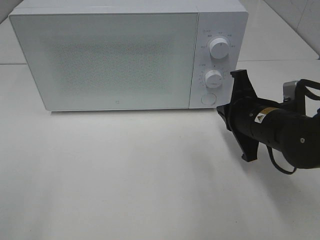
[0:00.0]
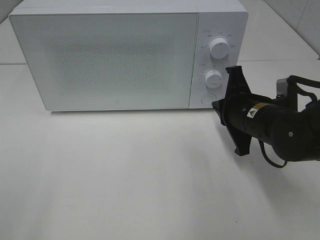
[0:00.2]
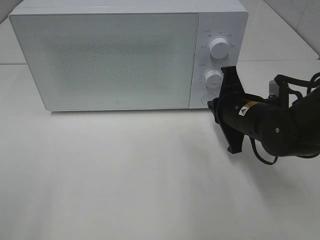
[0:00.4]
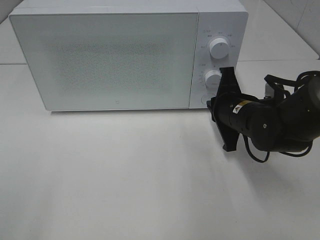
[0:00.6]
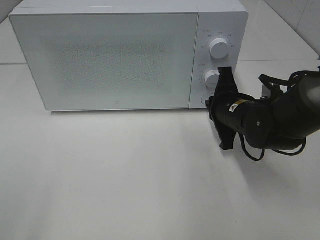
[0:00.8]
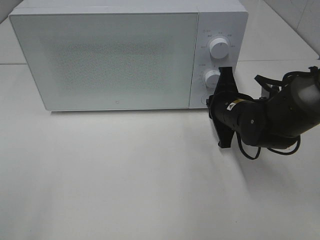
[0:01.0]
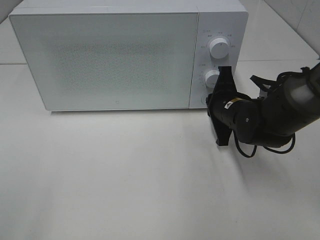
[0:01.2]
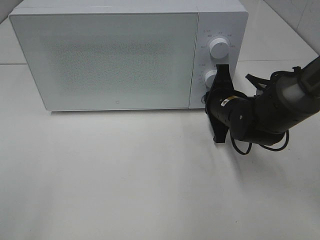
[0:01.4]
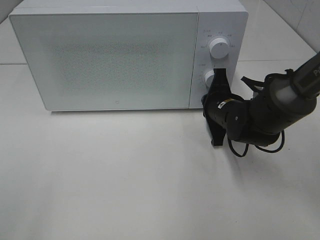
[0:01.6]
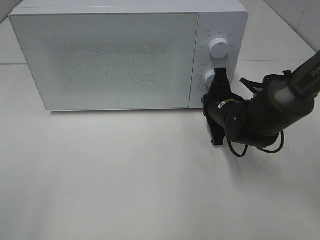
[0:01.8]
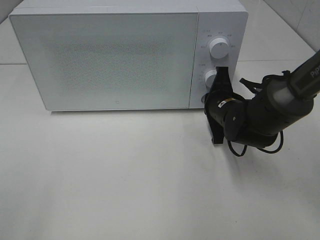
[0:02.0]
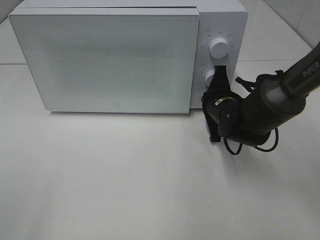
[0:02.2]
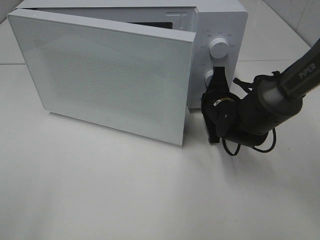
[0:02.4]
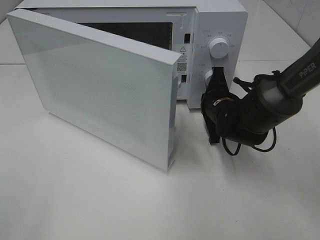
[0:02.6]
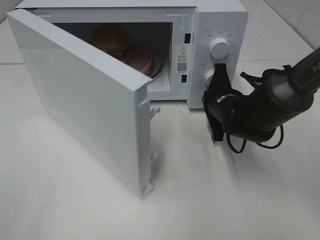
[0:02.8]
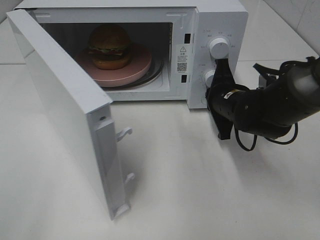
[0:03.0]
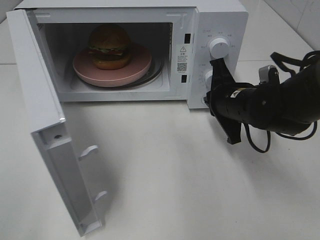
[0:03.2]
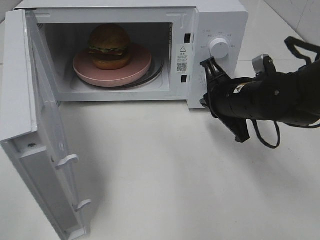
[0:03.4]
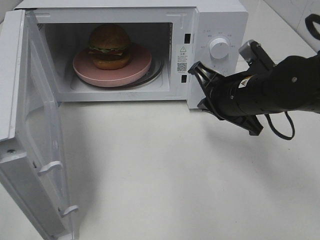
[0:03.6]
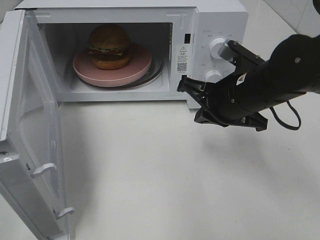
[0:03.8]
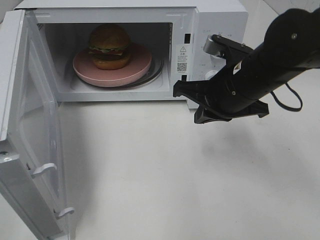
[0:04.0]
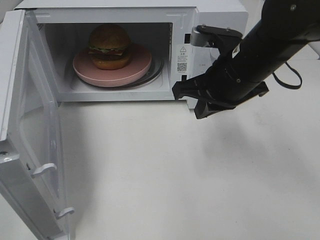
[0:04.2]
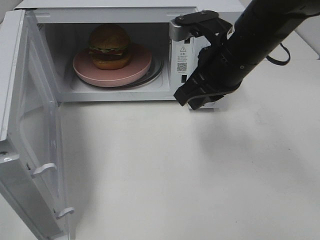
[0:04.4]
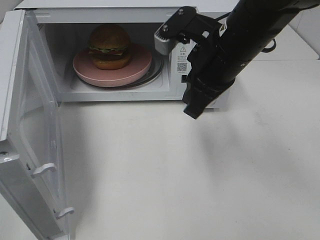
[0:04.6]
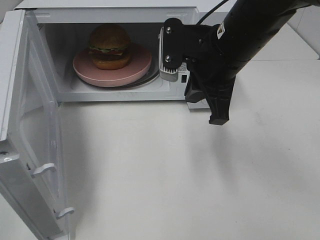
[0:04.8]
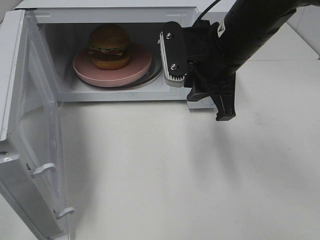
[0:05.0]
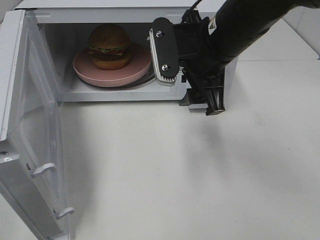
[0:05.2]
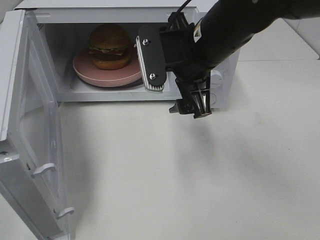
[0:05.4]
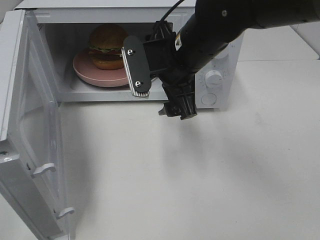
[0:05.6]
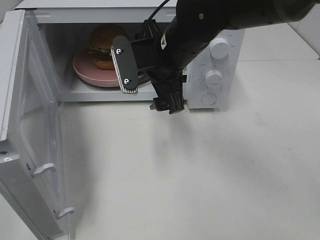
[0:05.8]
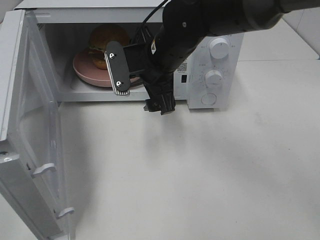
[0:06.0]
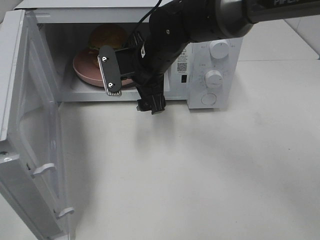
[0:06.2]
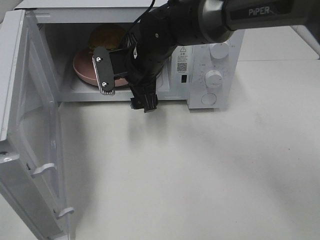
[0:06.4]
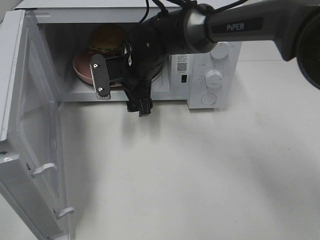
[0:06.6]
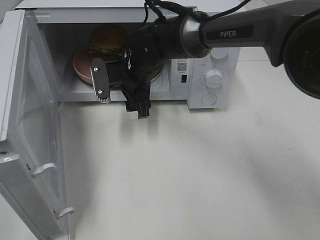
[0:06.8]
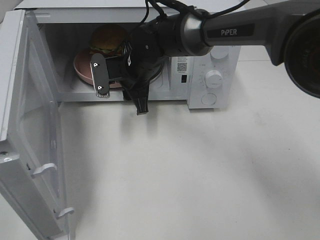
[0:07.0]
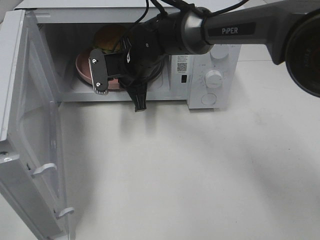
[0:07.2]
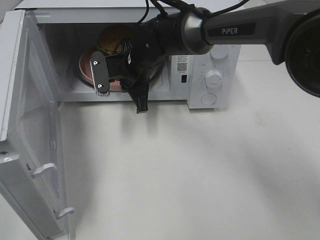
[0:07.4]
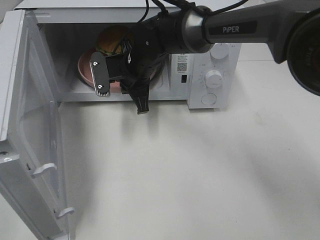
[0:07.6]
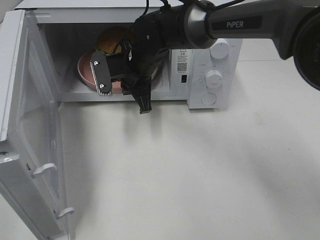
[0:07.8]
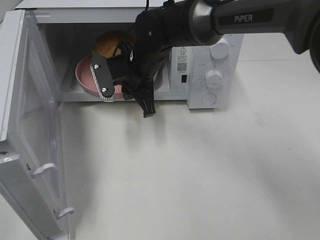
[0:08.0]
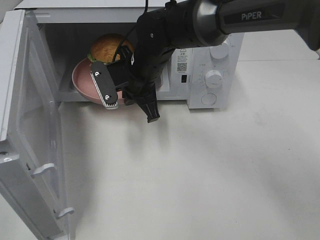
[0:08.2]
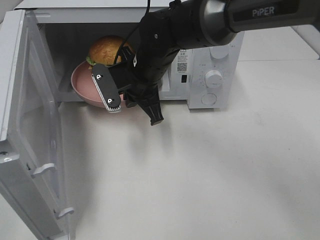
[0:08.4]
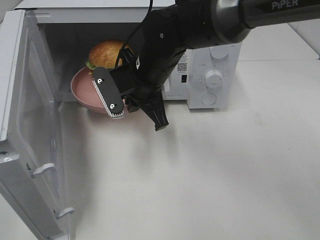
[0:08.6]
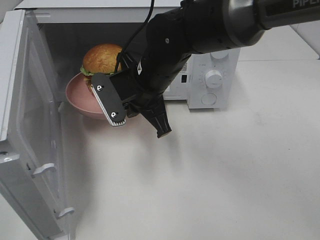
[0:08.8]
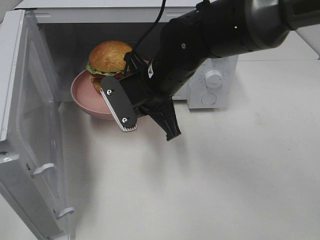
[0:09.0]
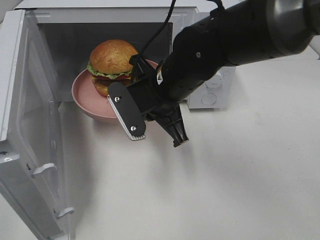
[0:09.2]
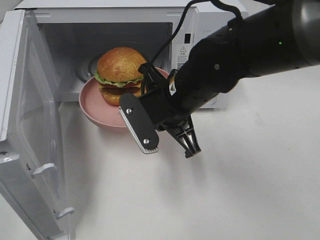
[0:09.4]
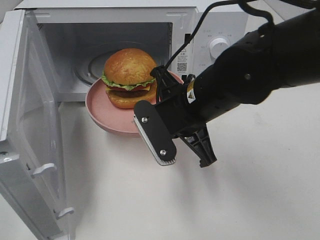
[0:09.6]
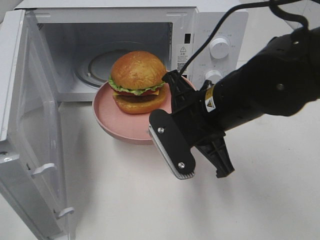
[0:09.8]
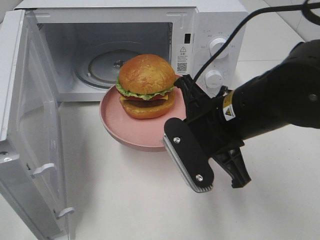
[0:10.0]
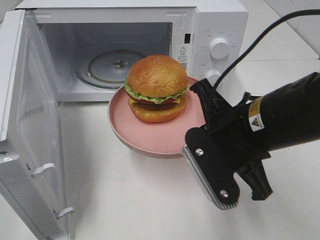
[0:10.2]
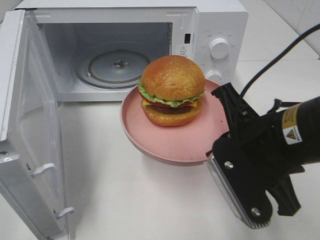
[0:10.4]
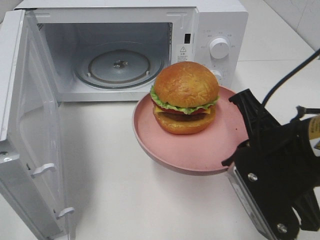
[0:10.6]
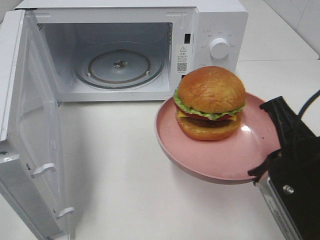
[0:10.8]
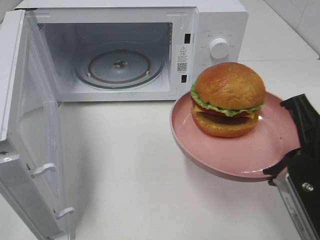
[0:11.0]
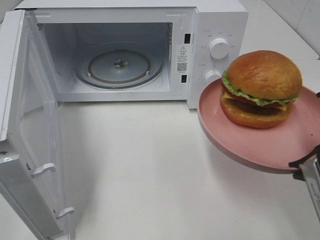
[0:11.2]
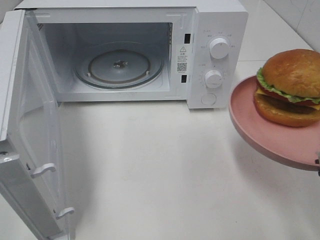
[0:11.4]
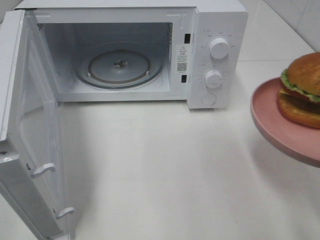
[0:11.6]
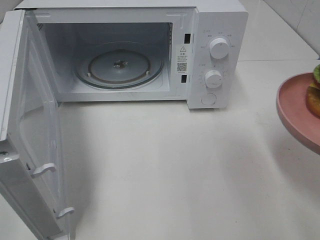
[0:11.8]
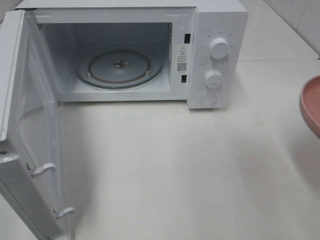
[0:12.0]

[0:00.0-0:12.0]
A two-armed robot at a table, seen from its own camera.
Task of the whole recording: Heat the burger.
Step, 0:00.0 to 0:03.0: Right hand: press the switch.
Step, 0:03.2 to 0:07.2: Right hand: grab the plate with the hamburger.
0:00.0 to 0:01.6: The right gripper goes about 10 cm forward.
0:03.0 to 0:04.4: The right gripper is displaced upward by approximately 15 cm.
0:04.4 to 0:06.0: The right gripper is displaced to the left and forward by approximately 10 cm, and opens its fingers.
0:06.0 to 0:07.6: The right gripper shifts about 10 cm forward and downward, and closes.
0:07.6 to 0:09.0: The right gripper heads backward, covering approximately 10 cm.
0:09.0 to 0:10.4: The right gripper shifts approximately 20 cm backward and to the right.
0:10.4 to 0:12.0: The right gripper moves to the right and backward, some 10 cm.

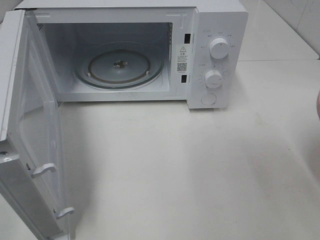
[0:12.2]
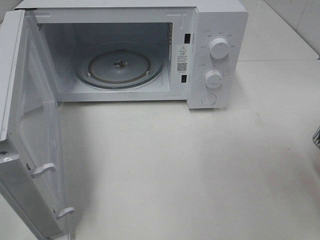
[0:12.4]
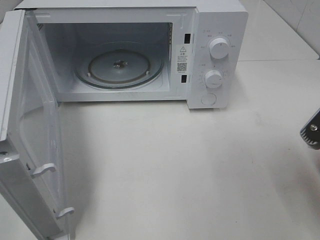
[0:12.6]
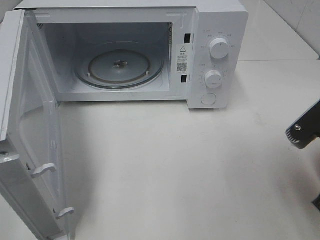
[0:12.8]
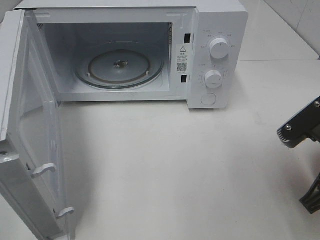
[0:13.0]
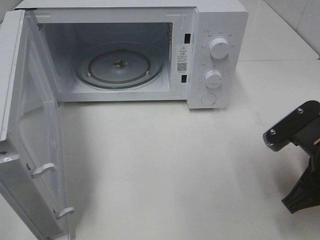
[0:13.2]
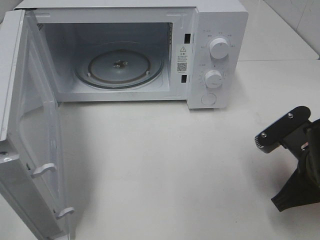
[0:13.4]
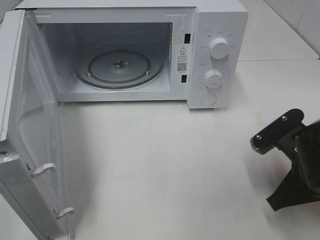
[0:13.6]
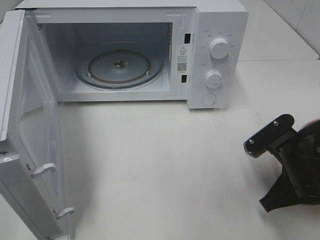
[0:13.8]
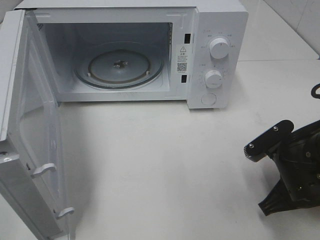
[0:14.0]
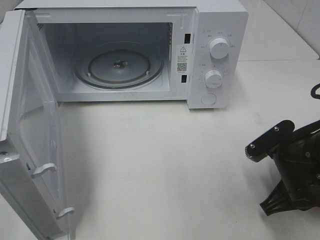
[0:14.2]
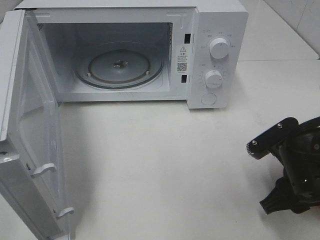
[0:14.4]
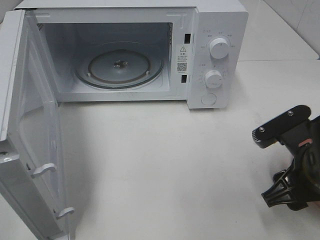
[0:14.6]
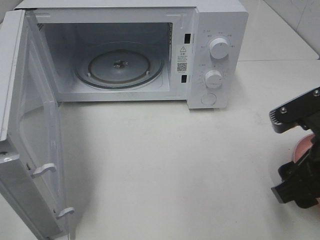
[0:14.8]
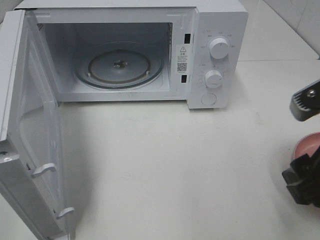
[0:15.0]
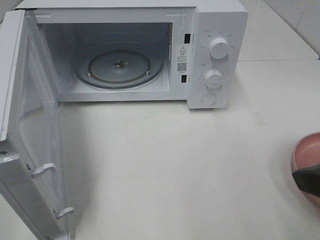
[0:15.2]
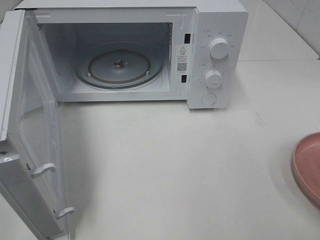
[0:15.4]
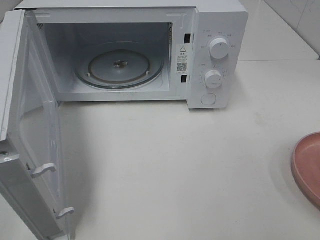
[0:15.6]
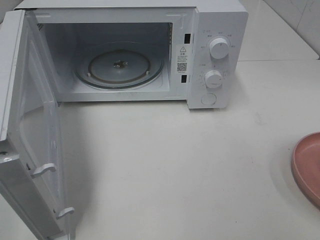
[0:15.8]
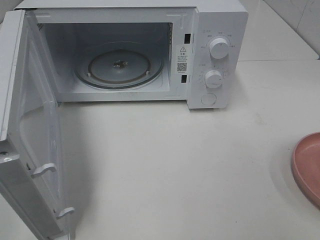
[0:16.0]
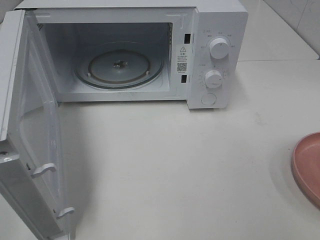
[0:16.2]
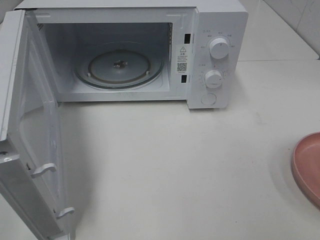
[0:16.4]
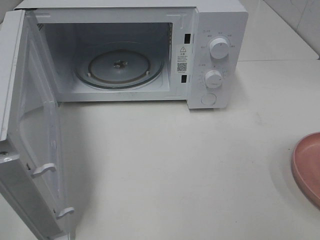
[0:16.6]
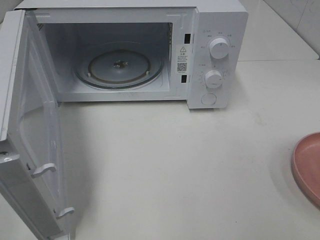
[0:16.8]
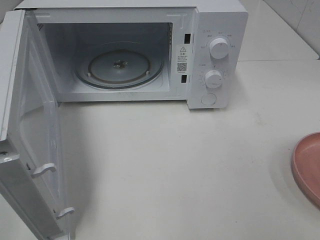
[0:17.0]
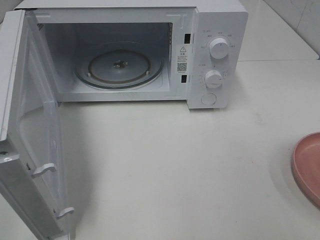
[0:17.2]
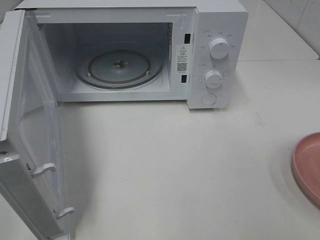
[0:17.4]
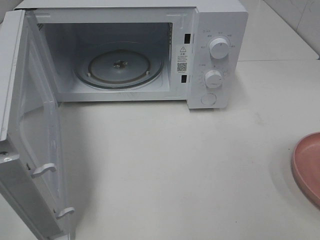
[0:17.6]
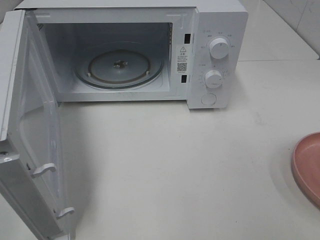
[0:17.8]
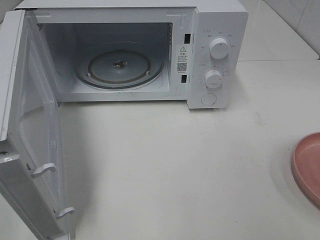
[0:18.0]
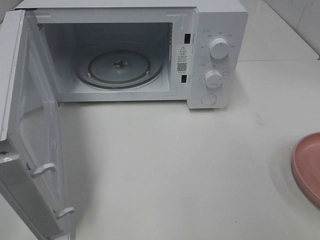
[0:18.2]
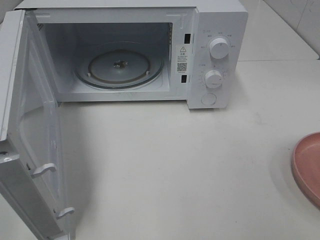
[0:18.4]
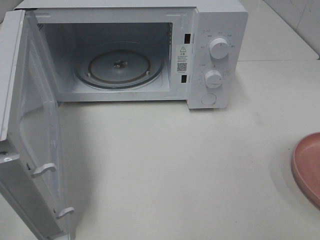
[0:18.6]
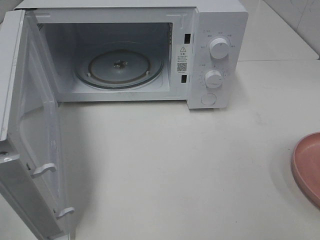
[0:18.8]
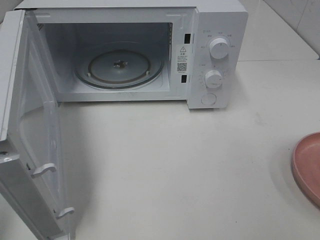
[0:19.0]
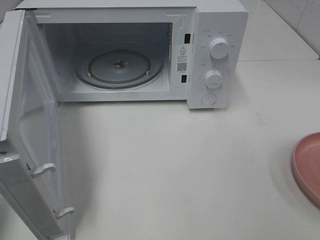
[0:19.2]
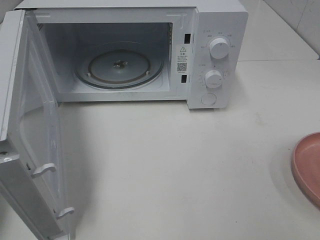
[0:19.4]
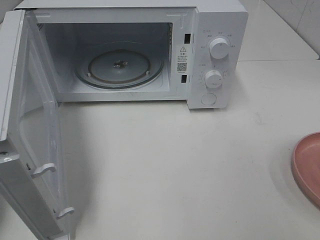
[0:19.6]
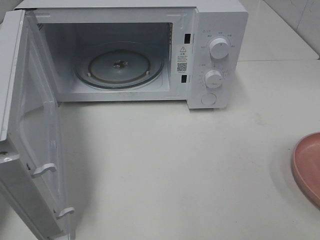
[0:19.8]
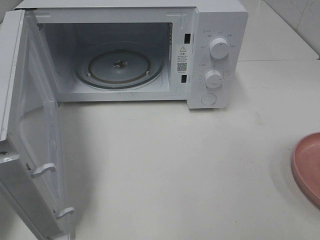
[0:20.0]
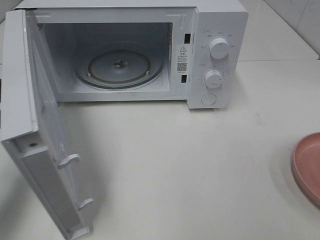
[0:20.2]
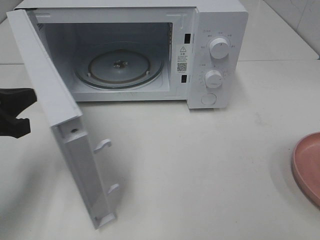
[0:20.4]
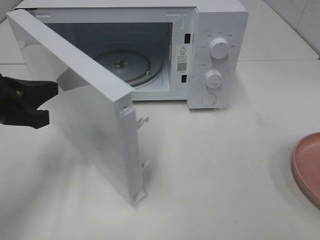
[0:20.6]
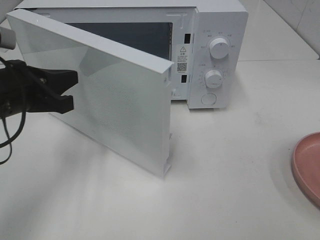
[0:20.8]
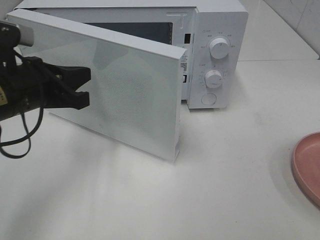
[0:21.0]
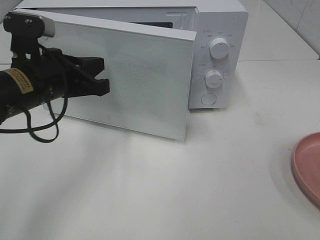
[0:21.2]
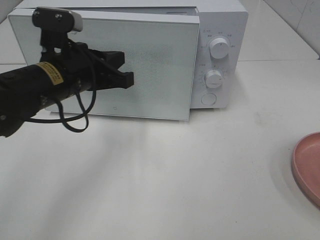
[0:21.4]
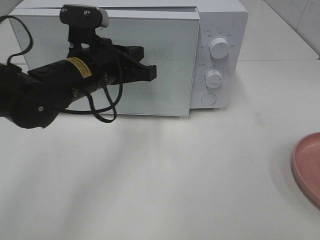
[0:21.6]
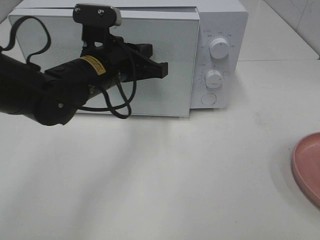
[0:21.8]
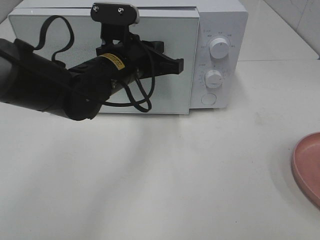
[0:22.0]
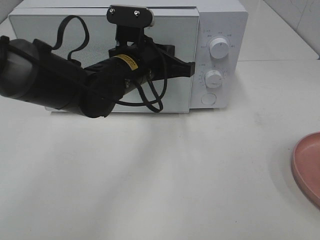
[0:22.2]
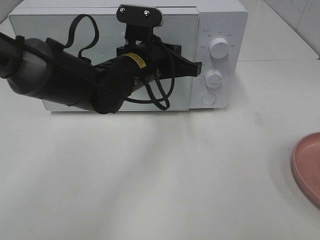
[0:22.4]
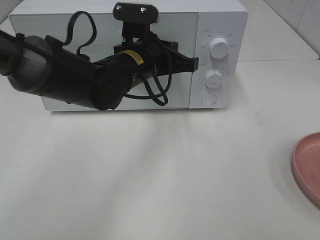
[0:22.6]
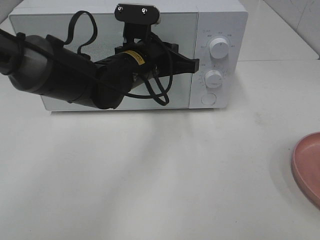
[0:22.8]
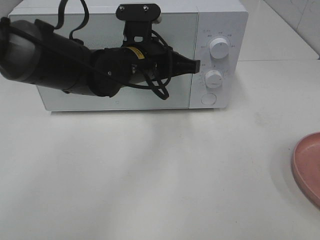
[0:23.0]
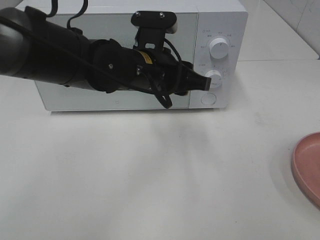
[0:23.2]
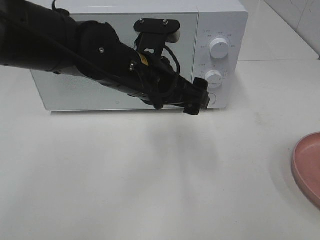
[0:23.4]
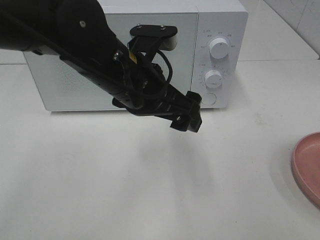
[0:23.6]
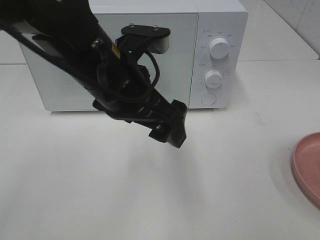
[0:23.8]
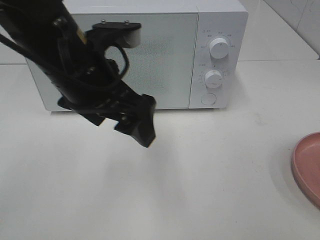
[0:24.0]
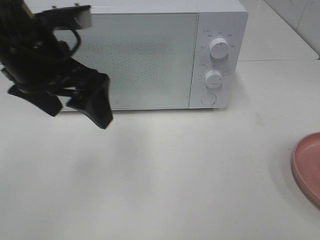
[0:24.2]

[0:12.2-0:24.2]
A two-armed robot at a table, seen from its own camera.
Task of the whole recording: Heat the burger.
Step, 0:12.2 to 0:14.2: Right hand: place the plate on the table.
Step, 0:14.4 to 0:23.0: Left hand: close the microwave door.
0:12.2 to 0:13.8: The right gripper moves downward and forward, about 15 cm.
0:13.8 to 0:15.2: The right gripper travels upward and backward by approximately 15 cm, and opens up.
0:15.2 to 0:16.6: The right gripper heads backward and to the right, covering roughly 15 cm.
0:16.6 to 0:18.2: Both grippers stay put.
0:19.8 to 0:21.2: The left gripper goes about 20 cm to the right and forward.
0:21.2 to 0:22.6: The left gripper moves to the right and forward, about 15 cm.
0:22.6 to 0:24.2: The left gripper travels to the left, upward and backward by roughly 20 cm, and opens its fingers.
